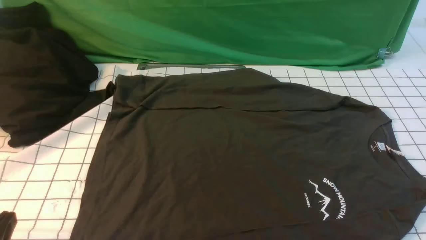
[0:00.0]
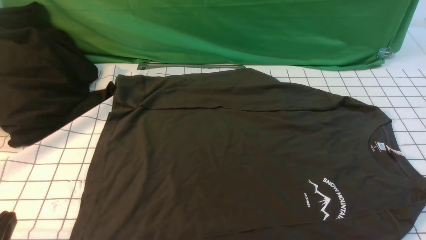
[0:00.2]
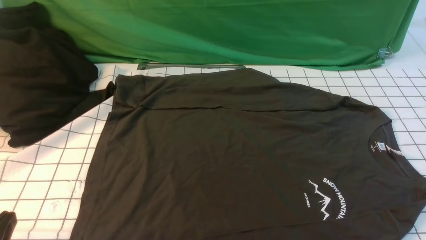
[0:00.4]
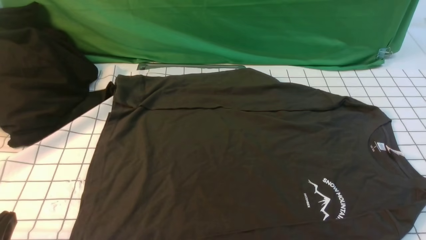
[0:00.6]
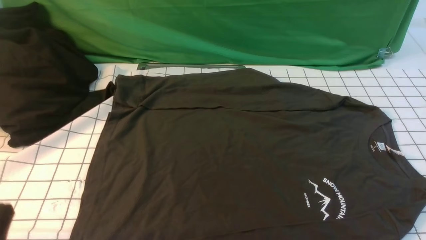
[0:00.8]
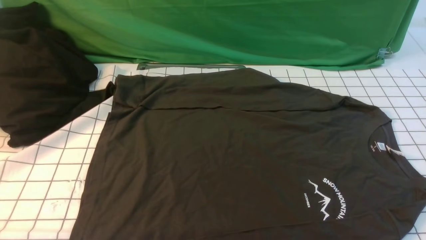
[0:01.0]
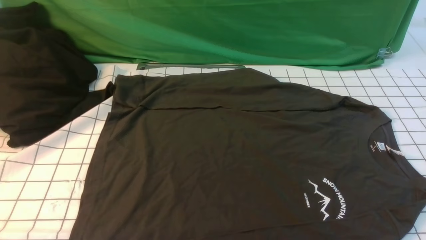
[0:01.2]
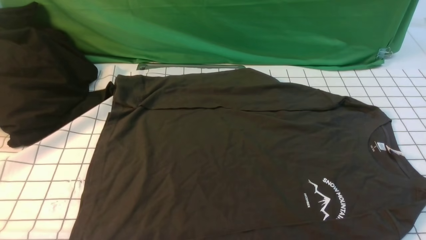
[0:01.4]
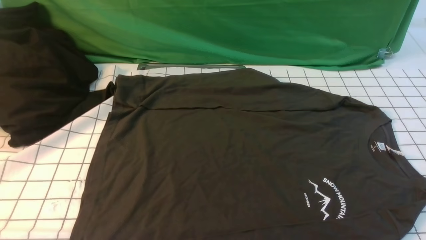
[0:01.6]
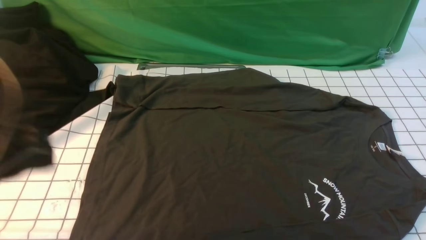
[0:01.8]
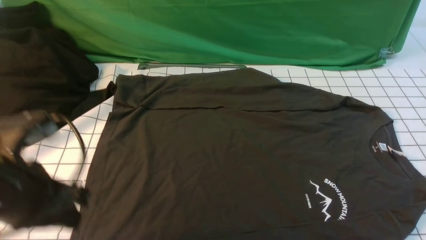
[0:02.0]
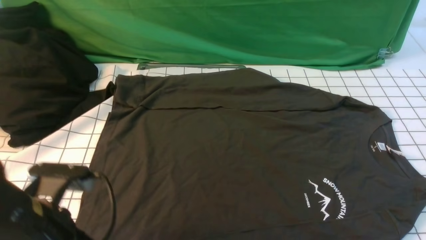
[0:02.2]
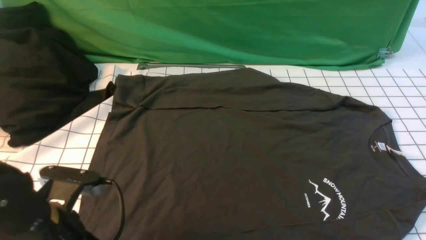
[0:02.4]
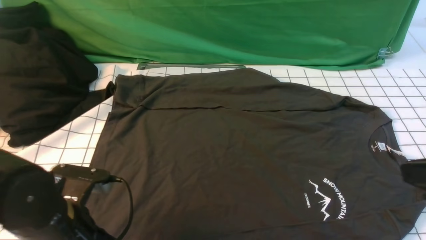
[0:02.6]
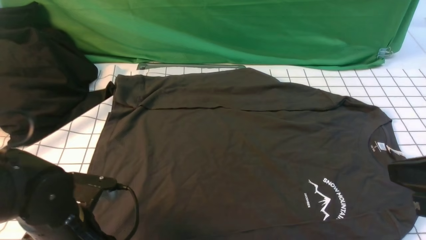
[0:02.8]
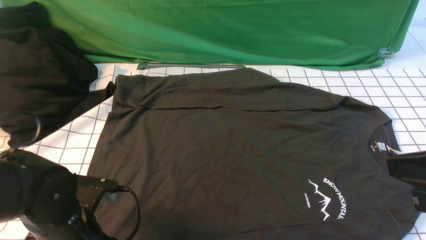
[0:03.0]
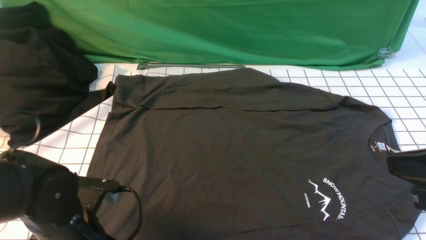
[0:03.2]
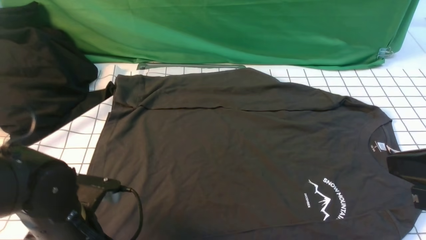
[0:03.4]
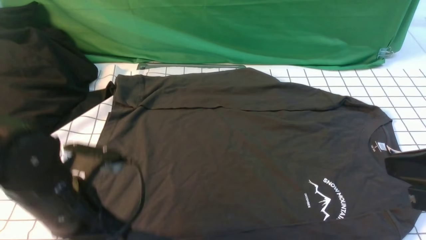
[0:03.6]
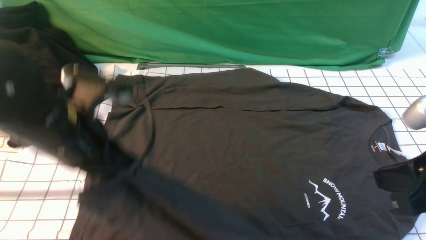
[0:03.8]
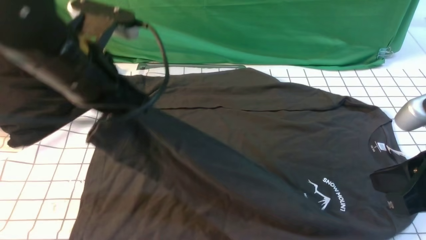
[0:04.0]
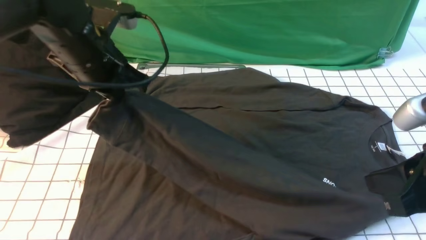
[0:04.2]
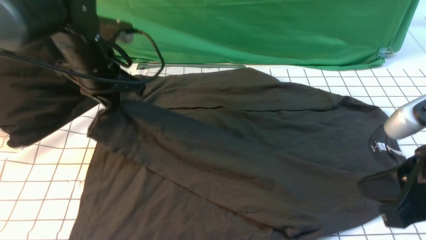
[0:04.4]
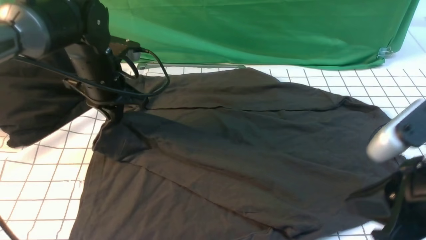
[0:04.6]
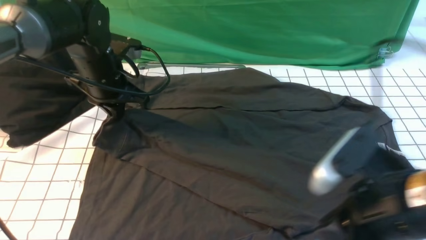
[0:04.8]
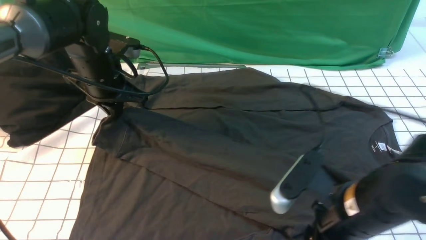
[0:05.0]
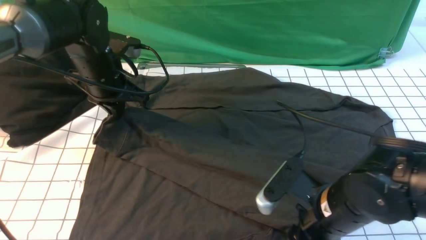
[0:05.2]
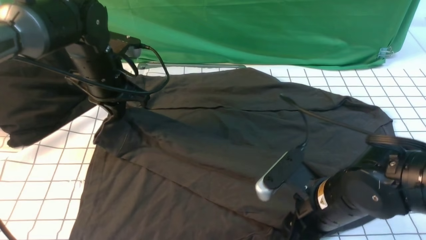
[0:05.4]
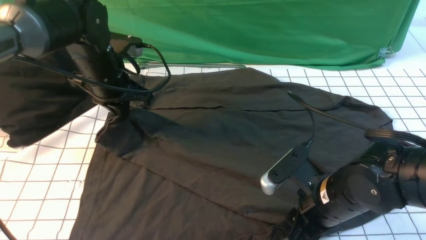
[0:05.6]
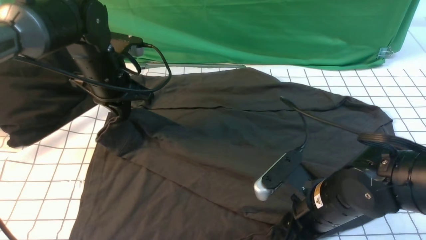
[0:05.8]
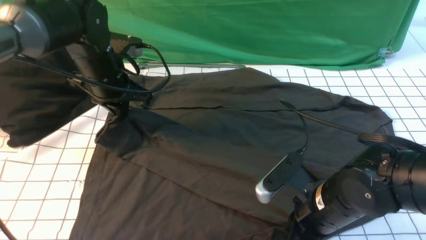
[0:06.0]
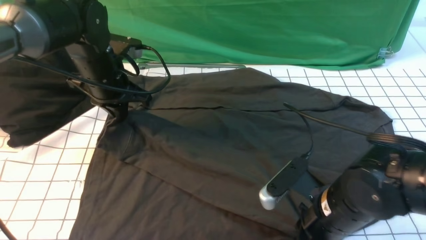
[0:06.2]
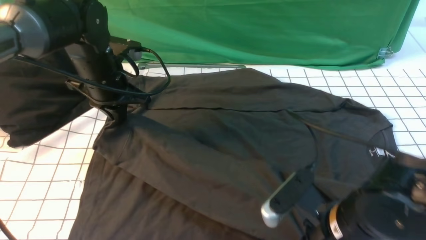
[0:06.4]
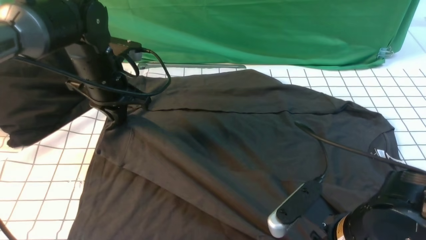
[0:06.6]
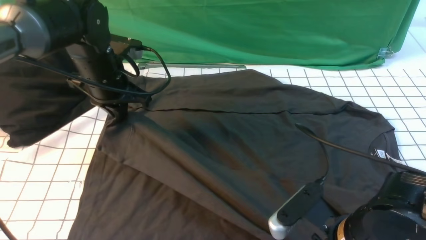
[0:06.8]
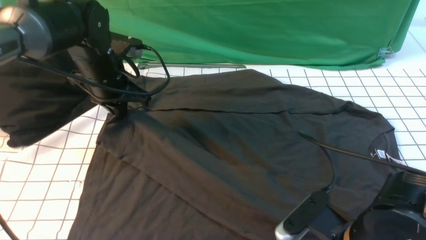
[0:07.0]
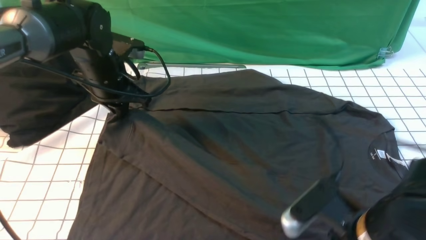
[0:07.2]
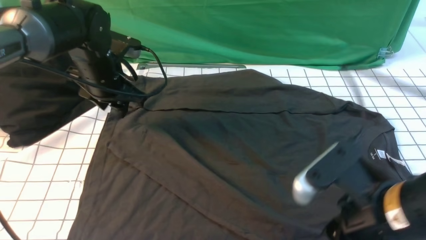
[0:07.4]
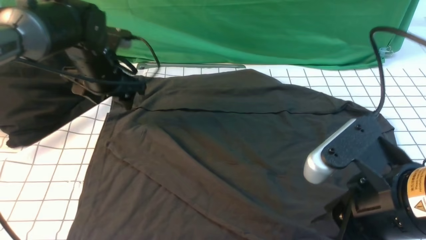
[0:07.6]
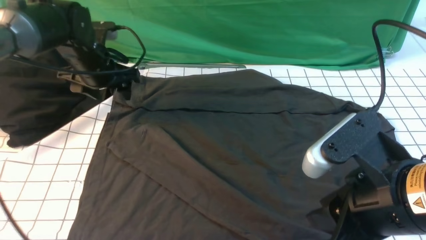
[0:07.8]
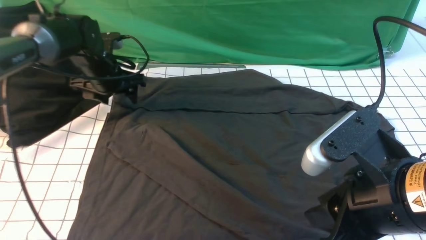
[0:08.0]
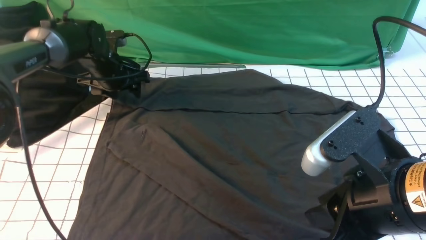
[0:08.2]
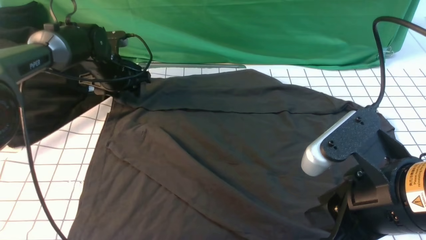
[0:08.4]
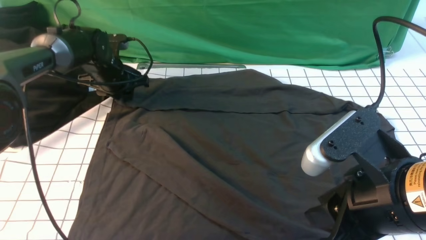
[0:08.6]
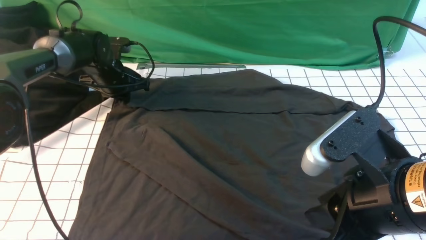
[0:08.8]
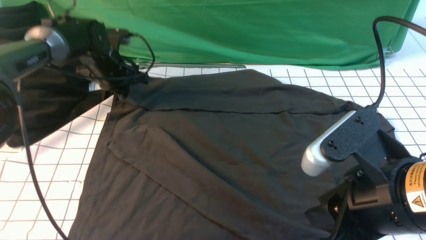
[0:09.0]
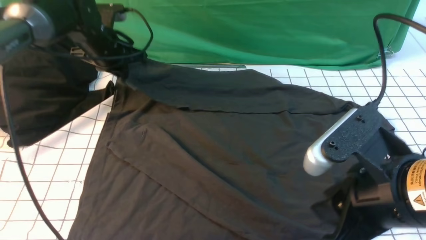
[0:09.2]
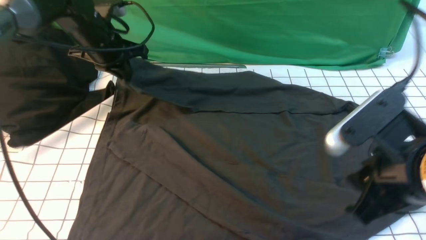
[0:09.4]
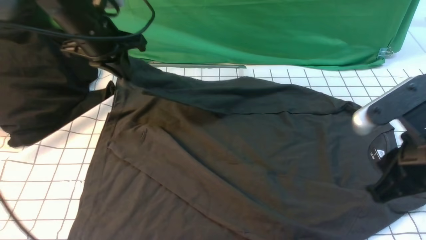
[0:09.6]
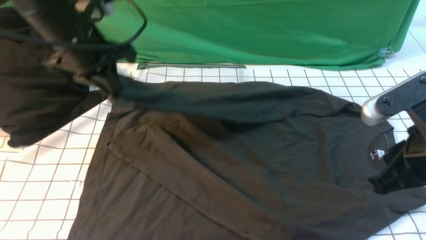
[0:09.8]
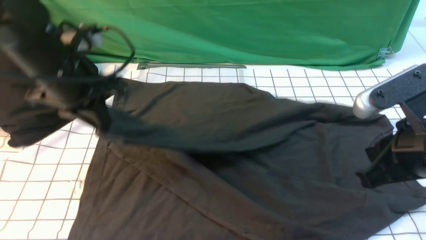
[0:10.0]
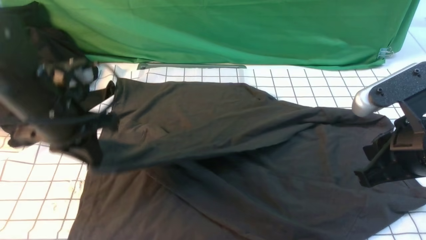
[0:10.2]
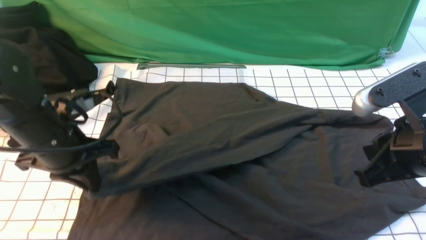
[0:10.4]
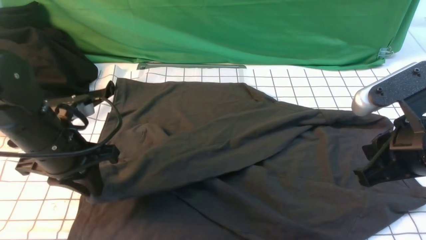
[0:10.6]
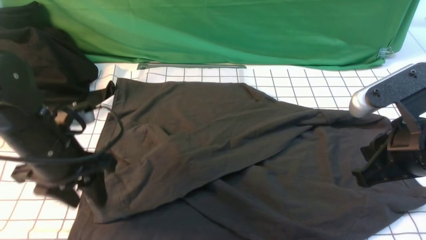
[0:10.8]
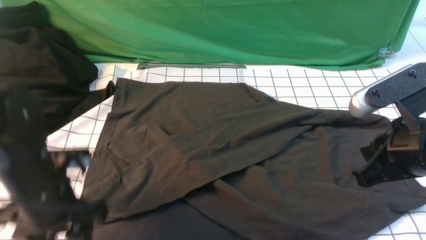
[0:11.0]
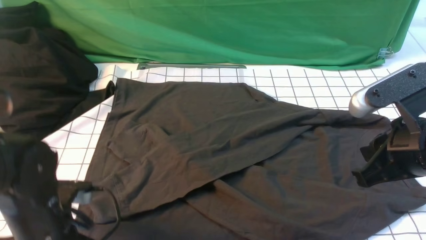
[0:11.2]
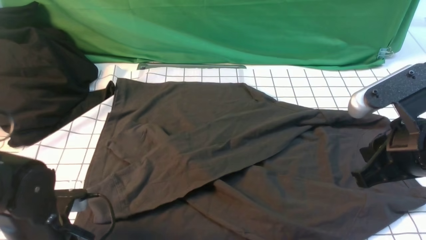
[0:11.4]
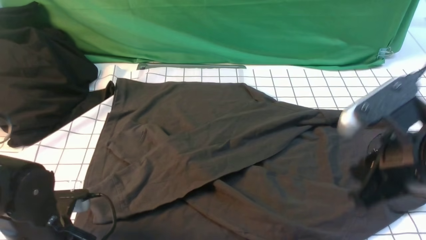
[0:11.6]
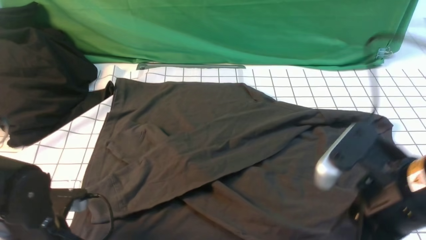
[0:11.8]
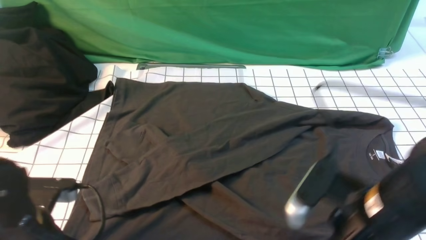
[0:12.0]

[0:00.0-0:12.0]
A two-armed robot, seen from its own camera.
Step, 0:00.0 to 0:03.6: use the left arm to clamp the cuff closest to it.
Step, 0:03.8 to 0:07.6: use the left arm to drag and place the cuff at the centered position on the left edge of the fabric.
Step, 0:07.8 to 0:09.2: use the left arm to clamp the cuff farthest from it.
Step, 0:09.4 to 0:10.8: use the left arm to drag and drop the cuff onto the cuff closest to the left arm.
0:01.6 to 0:03.0: The right gripper shifts approximately 15 cm upward, forward and to the left, and closes up; the left gripper moves downward and forward, roughly 20 cm, and opens up.
0:03.0 to 0:04.4: The left gripper is displaced forward and upward by about 25 cm, and closes.
0:04.4 to 0:06.0: The right gripper moves downward, to the left and forward, roughly 20 cm, and opens, then closes once more.
0:06.0 to 0:07.6: The right gripper travels upward and backward by some 15 cm, while the left gripper opens its fingers.
0:07.6 to 0:09.0: The left gripper is displaced forward by some 5 cm, and closes up.
0:09.0 to 0:10.4: The left gripper goes approximately 20 cm backward. The right gripper ends up approximately 5 cm from where it was.
0:10.4 to 0:12.0: The left gripper is displaced backward by roughly 10 cm, and opens and closes again; the right gripper shifts roughly 10 cm downward and to the left, and opens up.

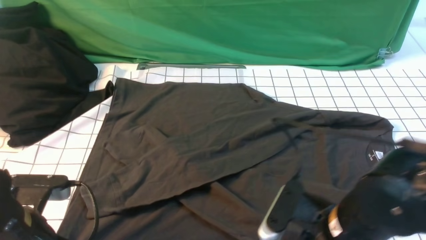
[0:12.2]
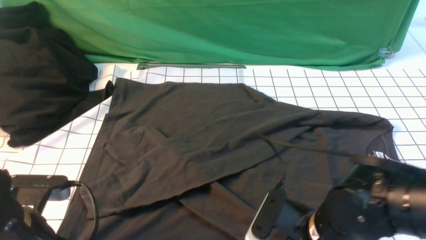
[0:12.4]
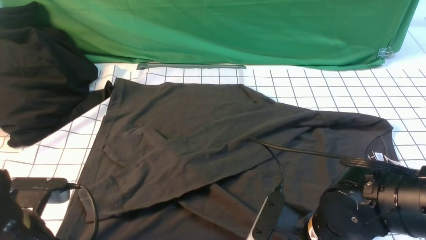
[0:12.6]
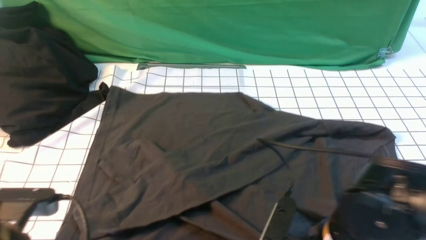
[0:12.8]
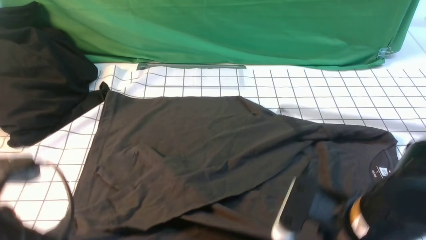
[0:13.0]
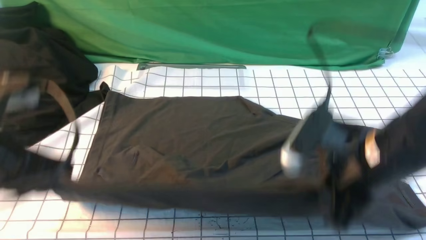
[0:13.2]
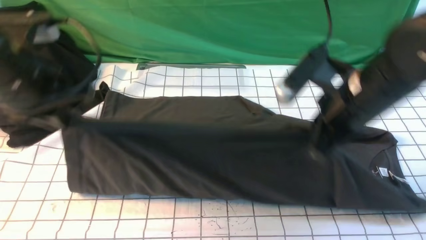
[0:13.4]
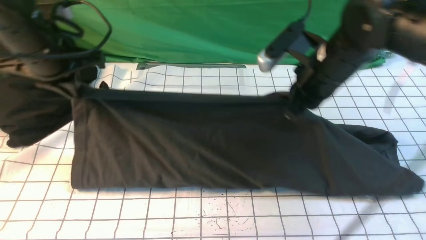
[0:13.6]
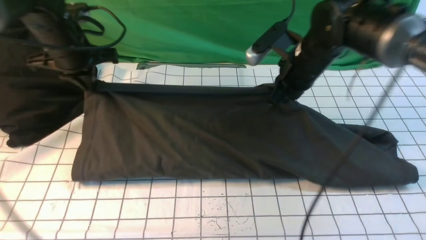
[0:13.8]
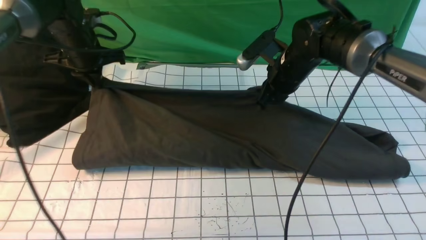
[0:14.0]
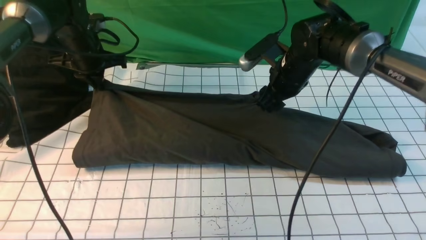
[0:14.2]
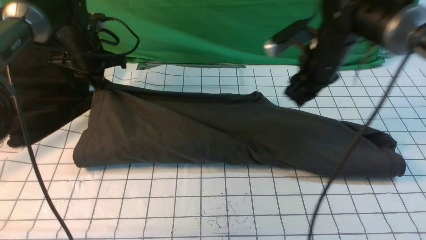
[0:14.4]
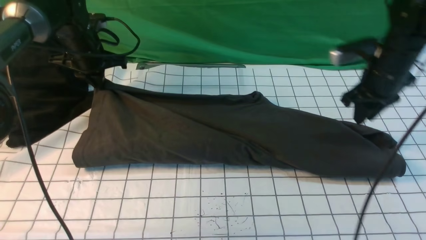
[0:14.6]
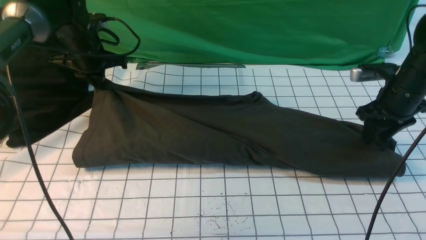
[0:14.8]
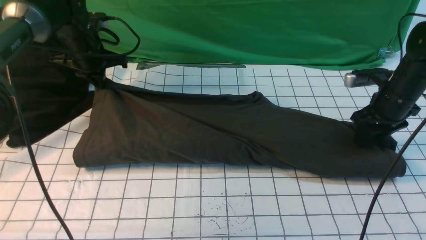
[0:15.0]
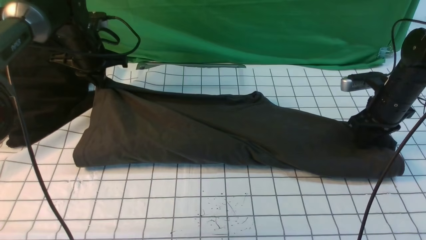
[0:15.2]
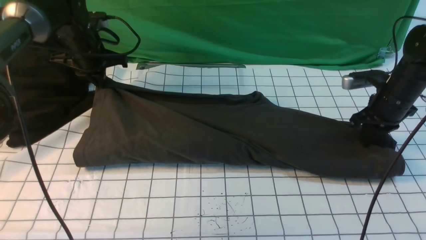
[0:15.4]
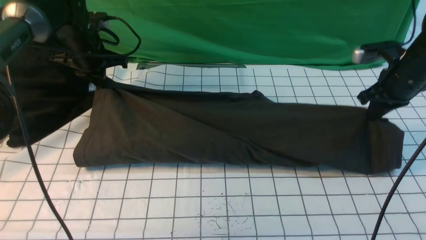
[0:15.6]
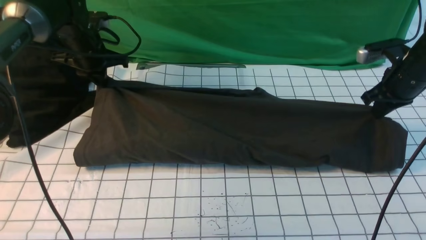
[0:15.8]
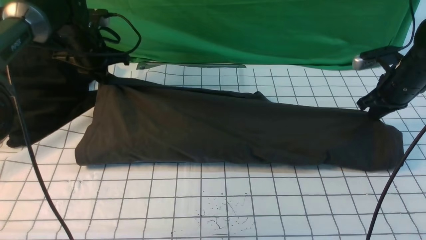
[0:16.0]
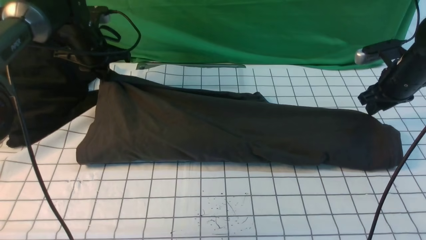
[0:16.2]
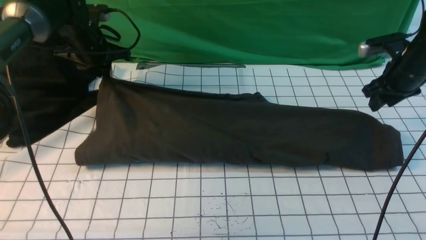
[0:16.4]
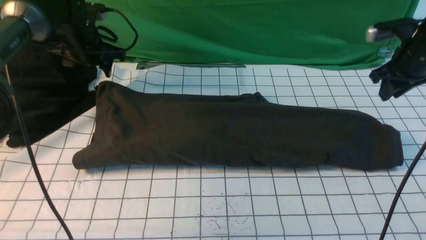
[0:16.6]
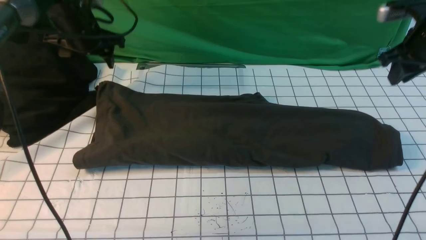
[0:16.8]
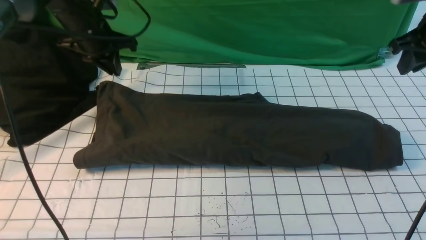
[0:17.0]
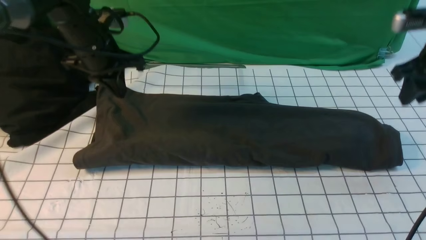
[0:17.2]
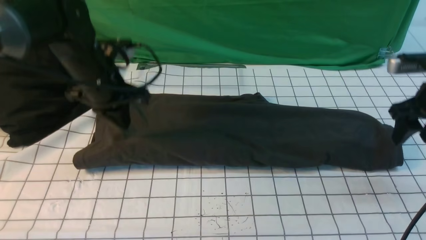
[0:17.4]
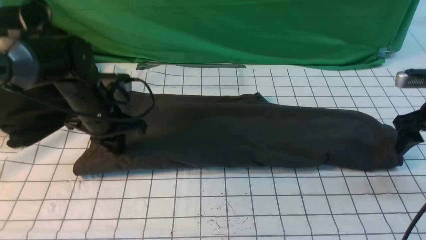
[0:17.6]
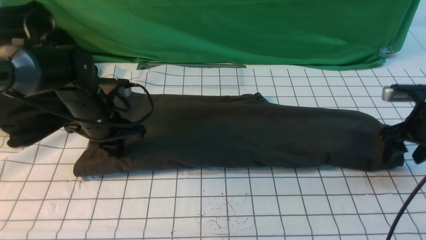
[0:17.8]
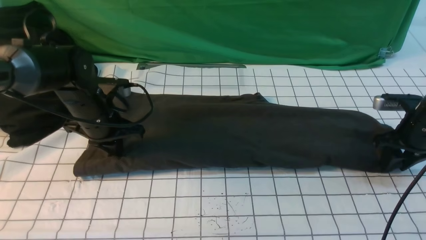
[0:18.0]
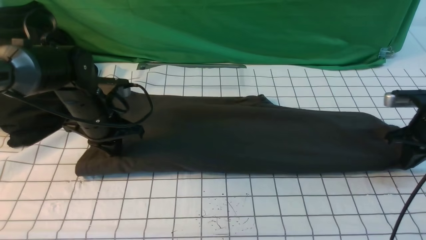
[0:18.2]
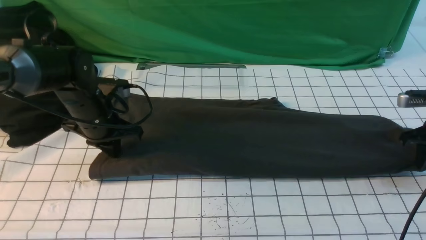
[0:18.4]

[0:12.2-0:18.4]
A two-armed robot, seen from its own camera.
Step, 0:13.2 to 0:16.8: use both arms to drag the lower edge of the fabric forward and fold it over the upper edge.
0:12.2 to 0:13.8: The grippers both shift forward by some 25 cm. The right gripper closes up.
0:13.8 to 0:15.4: The left gripper is displaced forward by about 5 cm; the right gripper travels to the right by some 20 cm, and opens, then closes once more.
0:15.4 to 0:16.8: The right gripper is displaced upward by some 10 cm. The left gripper opens.
0:16.8 to 0:18.4: The right gripper goes about 15 cm downward and to the right, and opens, then closes once more. Meanwhile the left gripper goes about 15 cm backward and downward, and closes its fingers.
